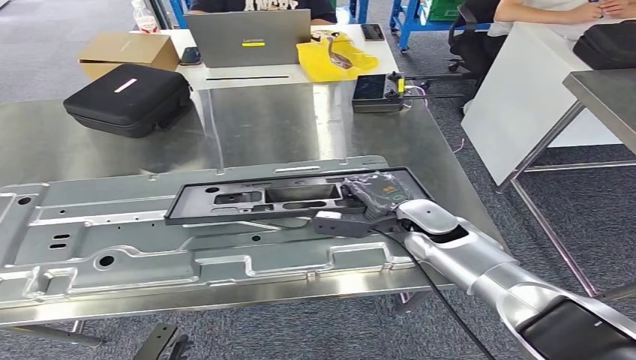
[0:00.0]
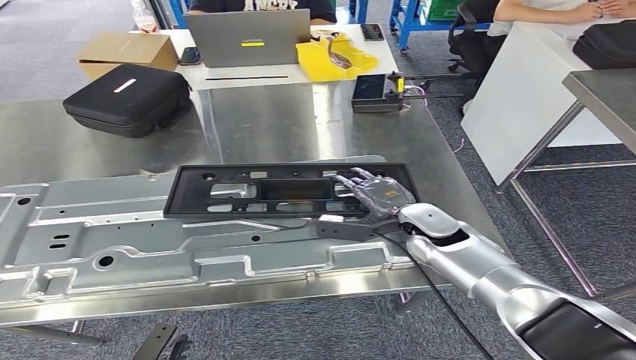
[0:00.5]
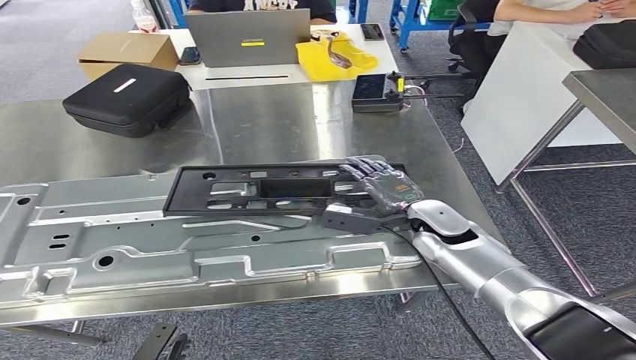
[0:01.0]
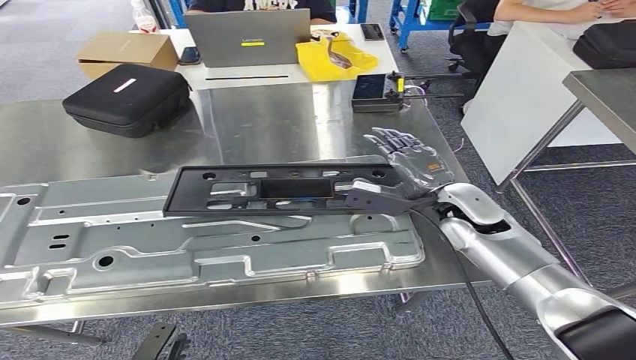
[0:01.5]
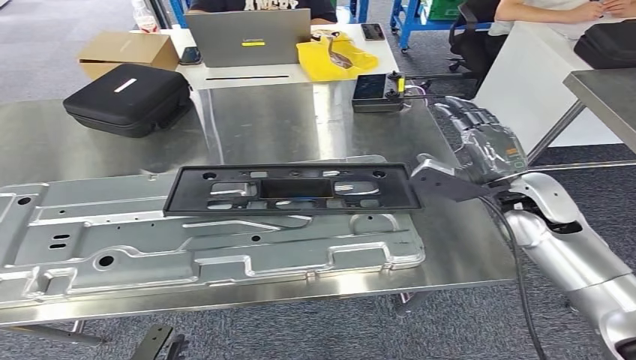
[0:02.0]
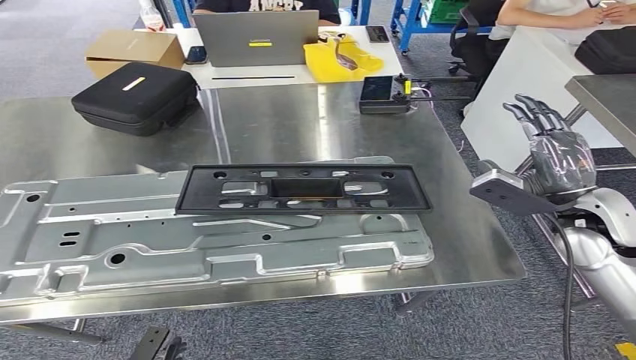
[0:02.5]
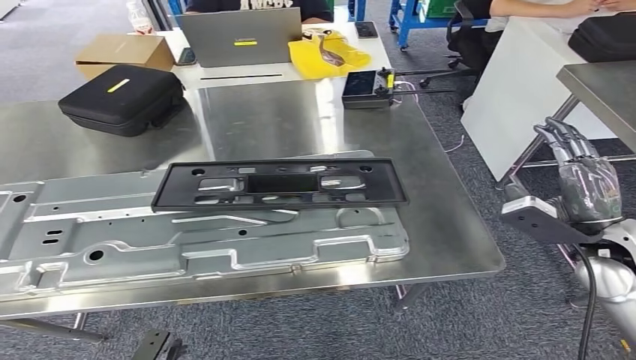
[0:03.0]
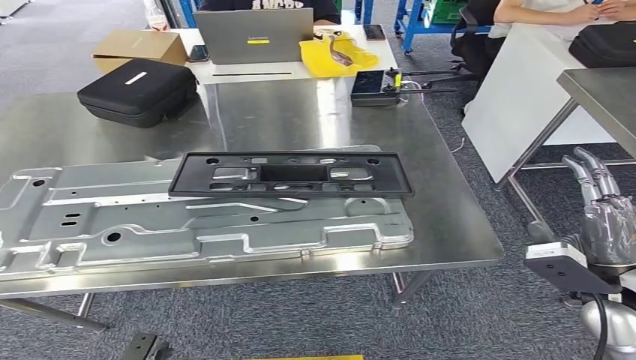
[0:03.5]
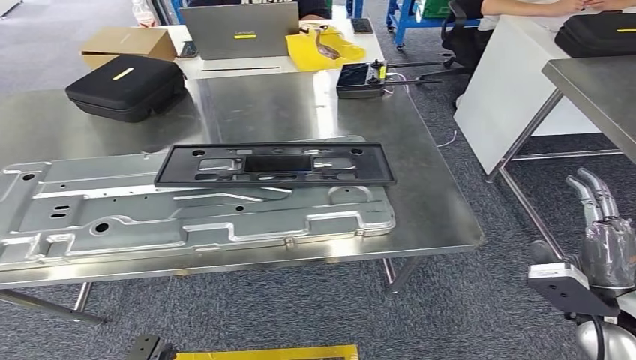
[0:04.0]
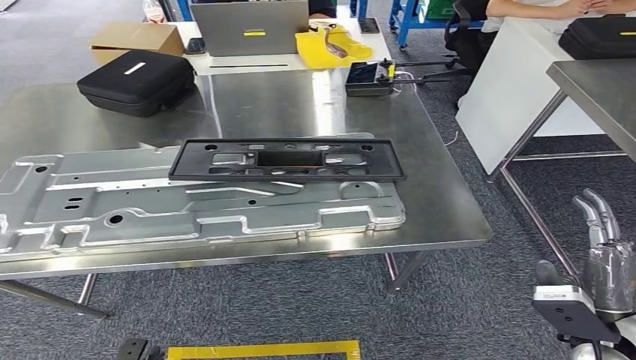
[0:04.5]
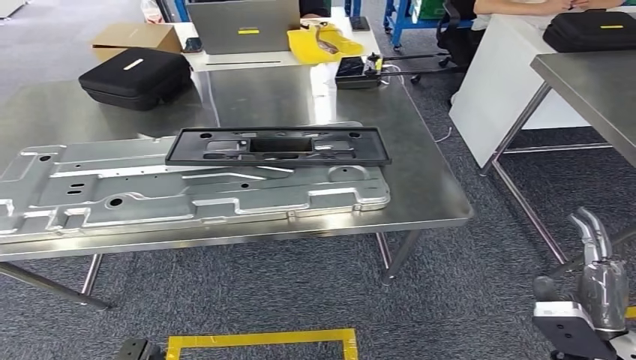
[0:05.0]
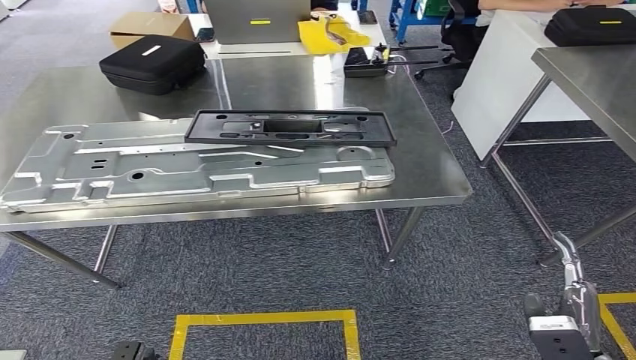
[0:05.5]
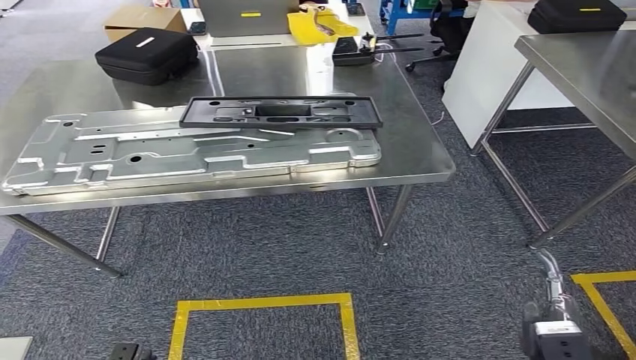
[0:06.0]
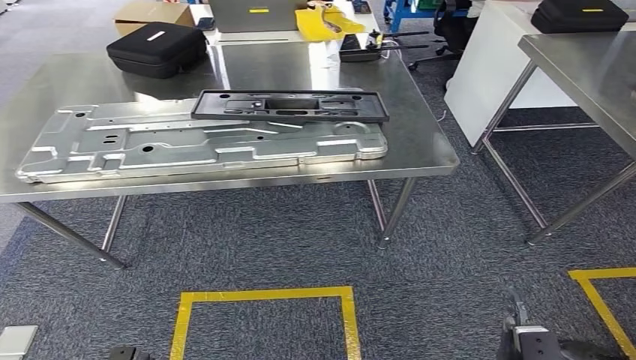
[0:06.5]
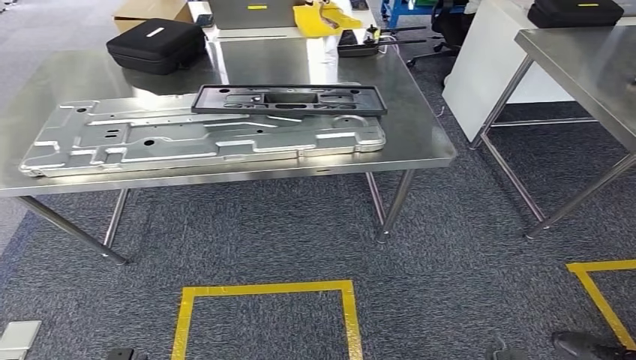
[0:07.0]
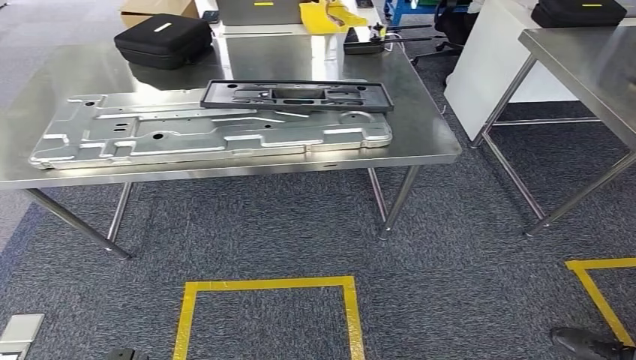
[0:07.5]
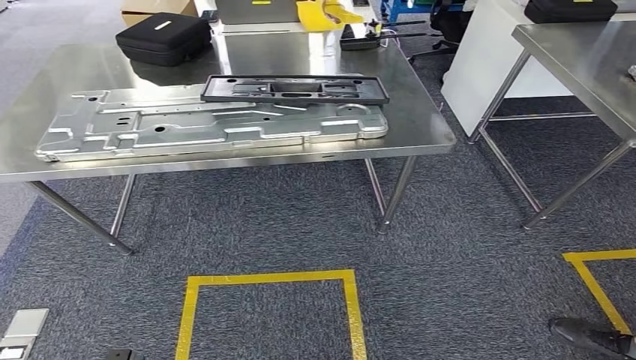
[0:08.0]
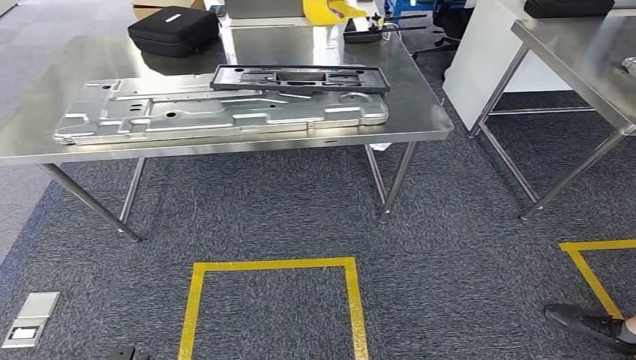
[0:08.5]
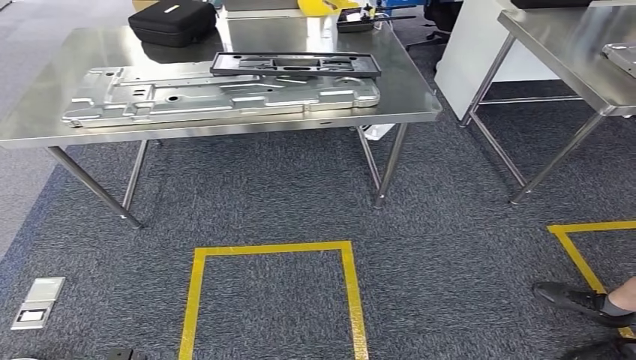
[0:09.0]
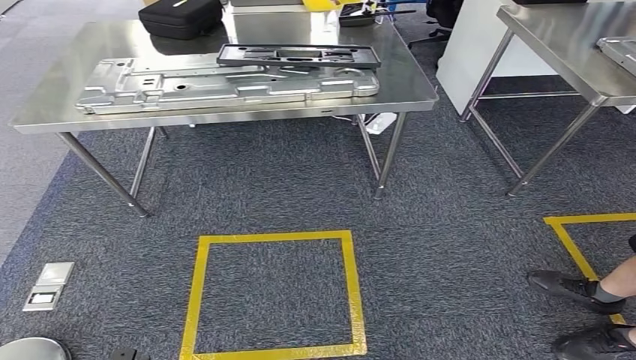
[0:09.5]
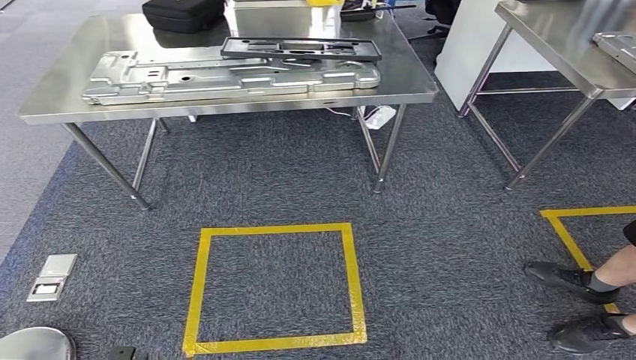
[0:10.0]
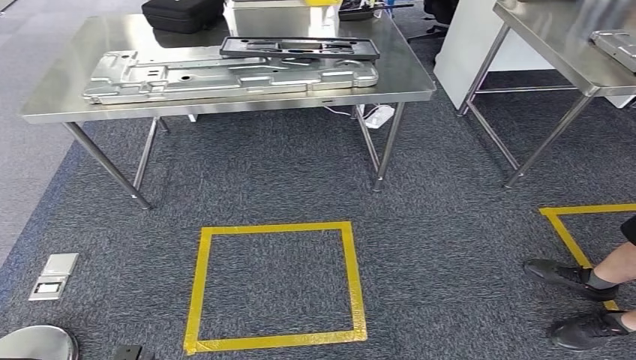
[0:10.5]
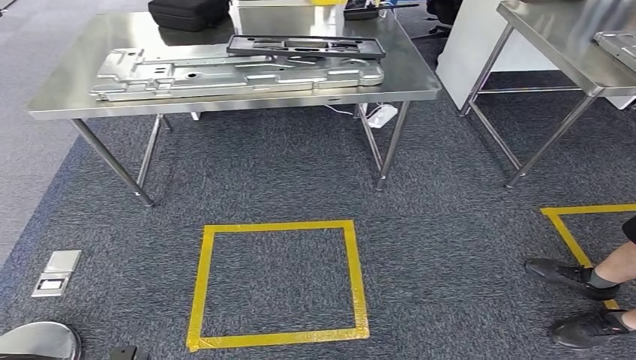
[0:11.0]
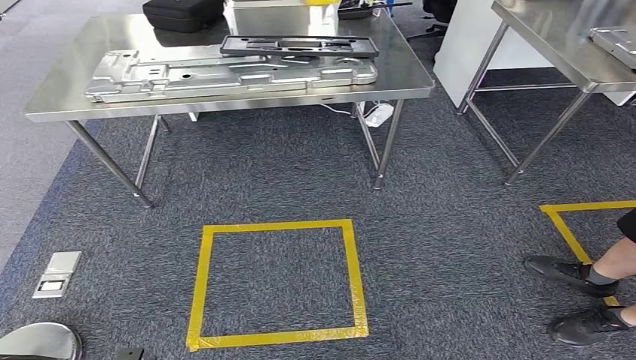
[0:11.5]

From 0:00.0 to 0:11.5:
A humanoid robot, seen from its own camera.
Step, from 0:00.0 to 0:03.0: Insert the large material into the corresponding slot on the workbench.
Step, from 0:03.5 to 0:11.5: Move to the initial position of the shelf.
From 0:00.0 to 0:02.0: The right hand shifts about 15 cm to the right and upward.
